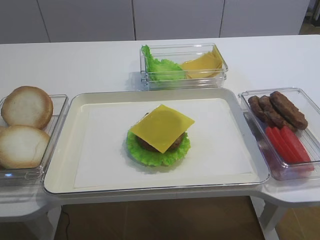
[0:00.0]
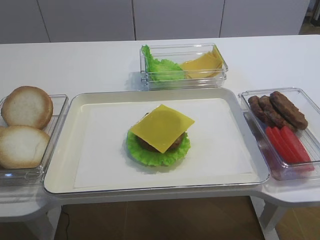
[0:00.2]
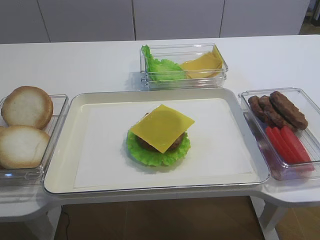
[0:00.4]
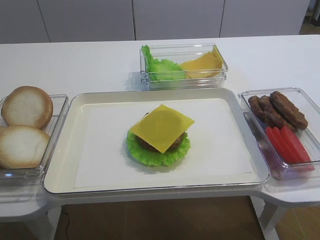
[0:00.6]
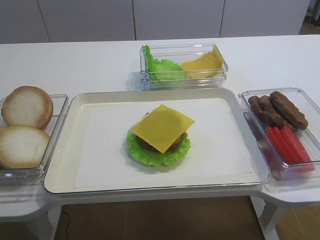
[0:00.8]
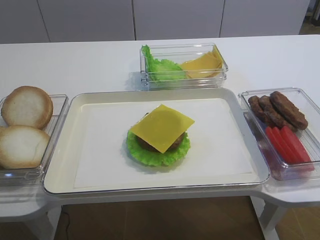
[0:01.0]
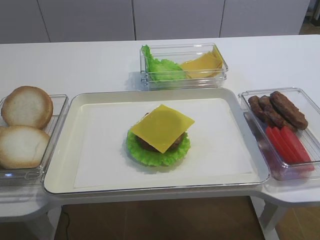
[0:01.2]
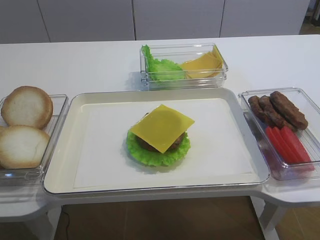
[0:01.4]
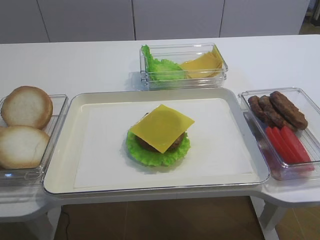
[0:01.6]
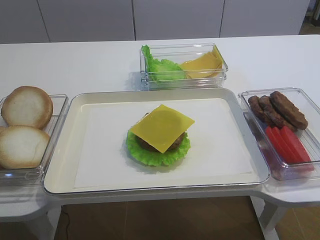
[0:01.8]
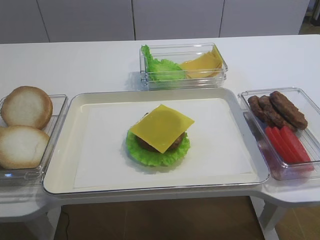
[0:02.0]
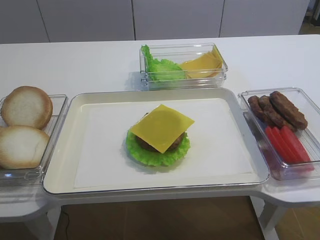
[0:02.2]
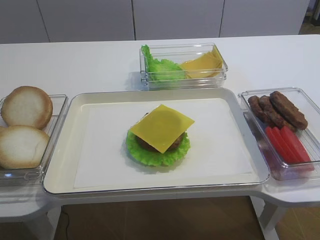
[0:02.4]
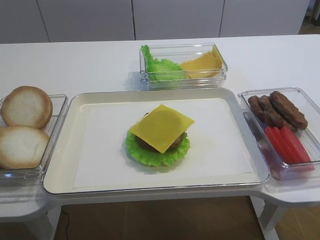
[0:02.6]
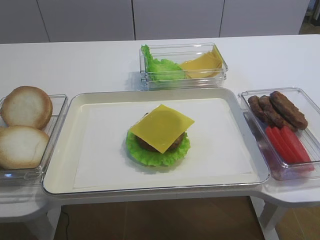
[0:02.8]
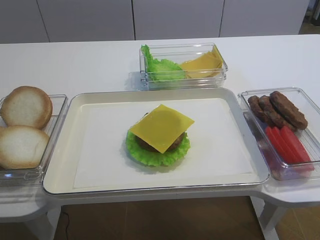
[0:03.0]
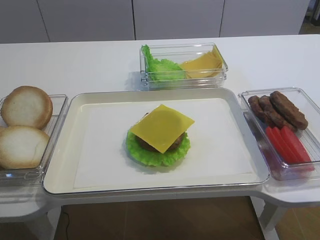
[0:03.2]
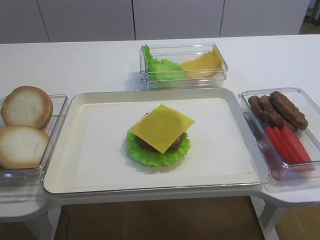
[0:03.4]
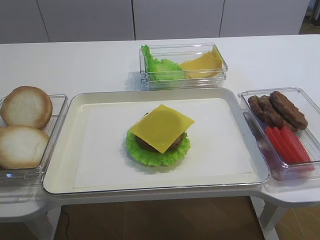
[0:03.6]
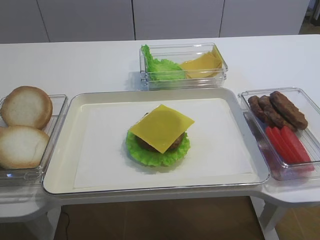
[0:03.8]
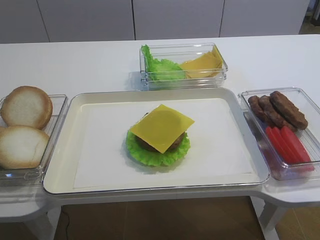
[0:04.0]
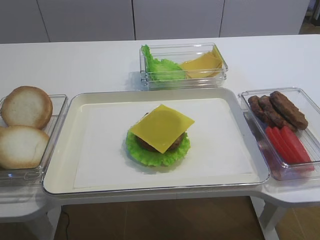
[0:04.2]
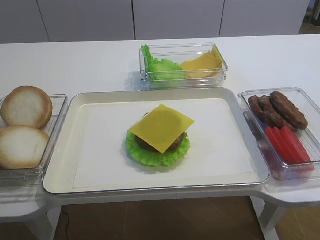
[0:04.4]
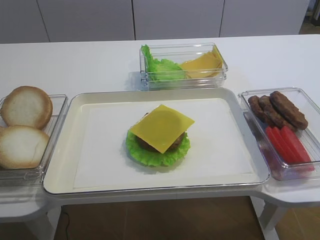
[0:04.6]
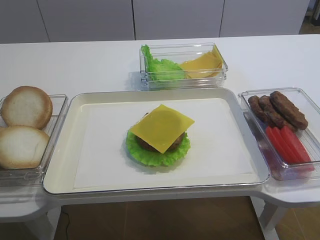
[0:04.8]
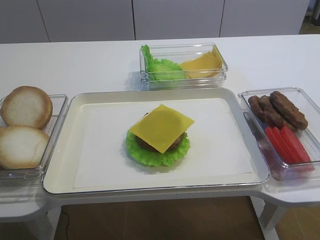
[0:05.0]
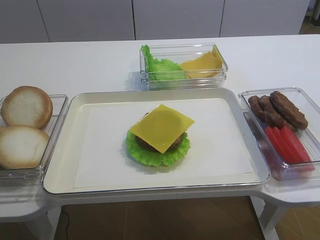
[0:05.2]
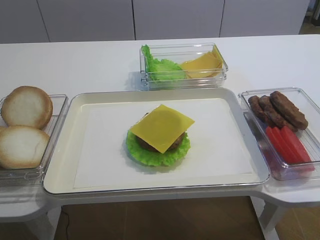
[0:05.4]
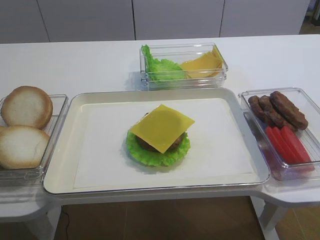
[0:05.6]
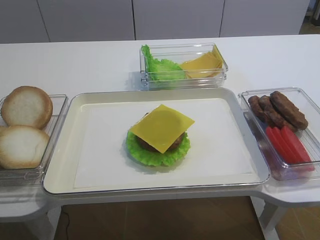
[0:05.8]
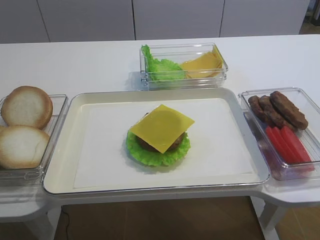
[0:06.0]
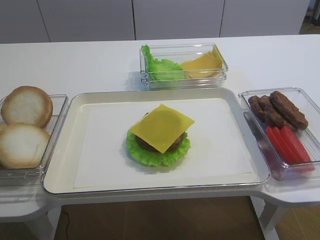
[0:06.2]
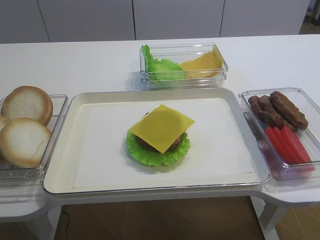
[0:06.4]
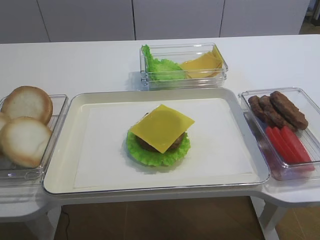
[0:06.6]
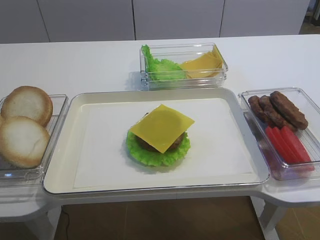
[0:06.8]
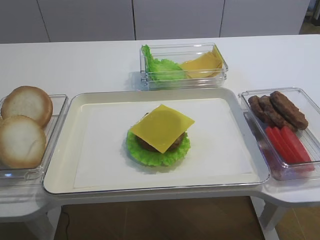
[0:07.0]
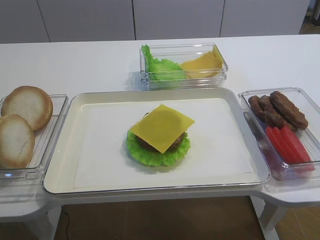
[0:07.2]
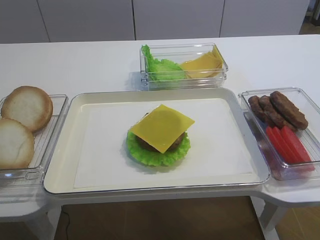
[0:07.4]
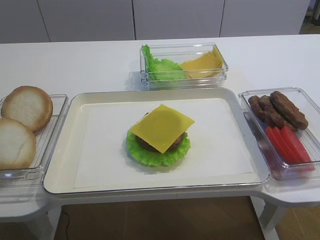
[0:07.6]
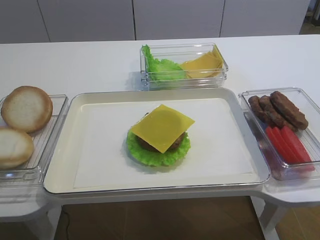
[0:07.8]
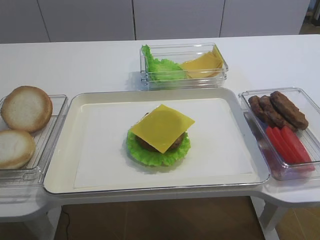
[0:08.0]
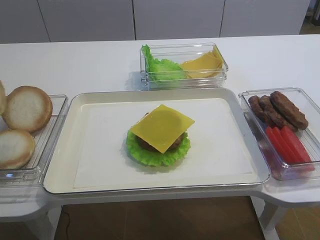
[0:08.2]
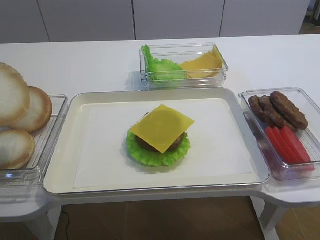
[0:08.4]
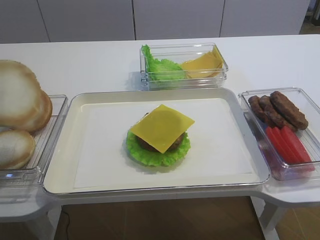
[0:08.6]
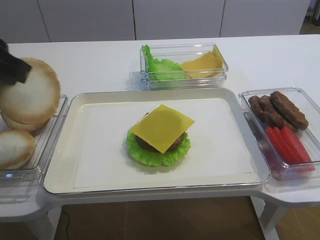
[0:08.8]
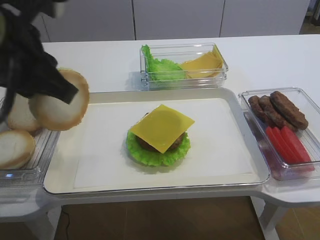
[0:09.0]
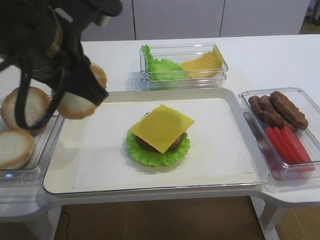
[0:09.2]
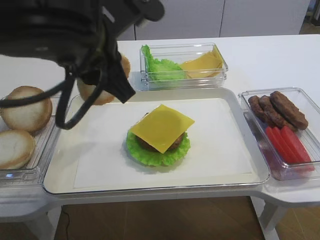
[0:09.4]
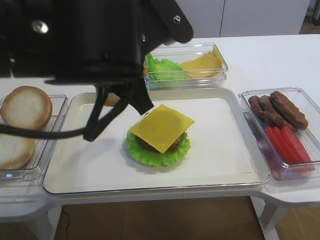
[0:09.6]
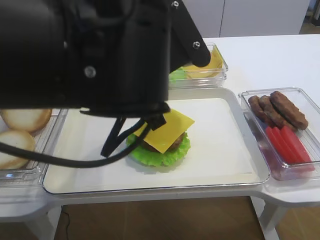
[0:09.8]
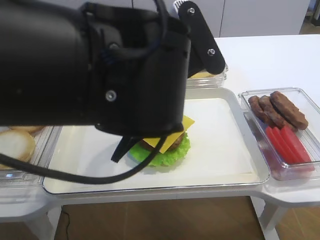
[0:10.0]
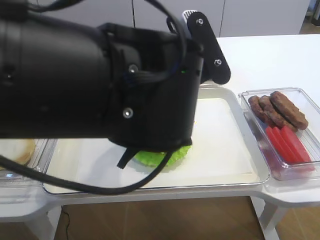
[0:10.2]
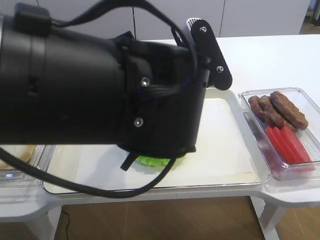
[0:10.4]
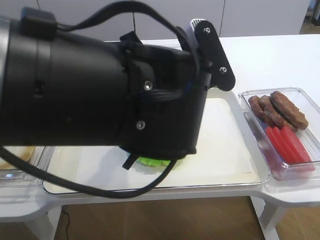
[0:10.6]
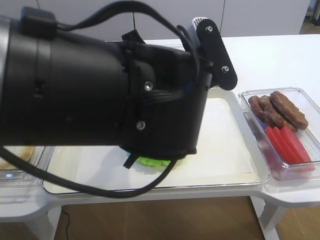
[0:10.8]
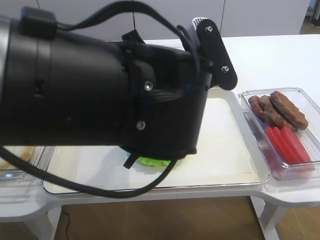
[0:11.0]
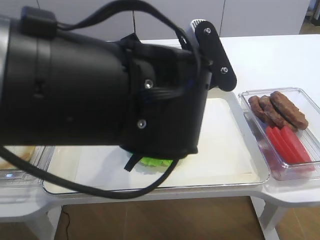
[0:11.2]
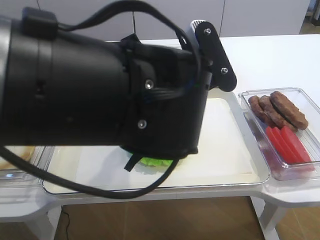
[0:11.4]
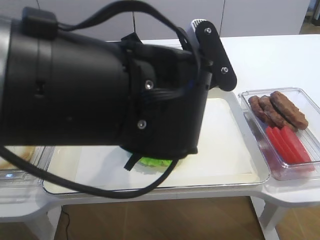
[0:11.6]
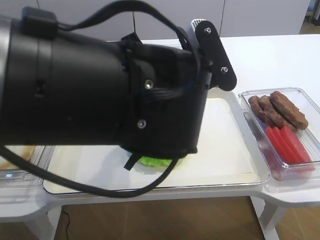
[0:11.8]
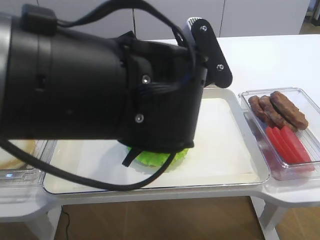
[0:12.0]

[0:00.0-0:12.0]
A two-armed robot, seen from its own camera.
0:06.0 to 0:07.6: The left gripper travels upward by approximately 5 cm.
0:07.6 to 0:09.0: The left gripper moves to the right, approximately 20 cm.
0:09.0 to 0:10.4: The left gripper heads to the right, covering about 15 cm.
0:10.4 to 0:12.0: The two grippers keep their place.

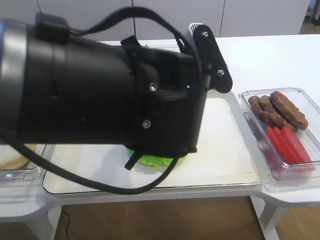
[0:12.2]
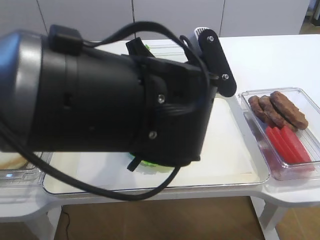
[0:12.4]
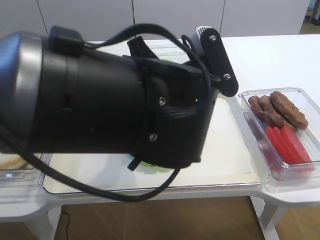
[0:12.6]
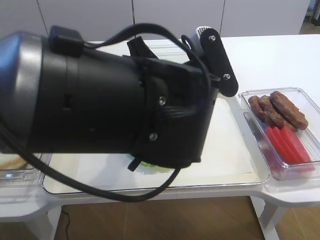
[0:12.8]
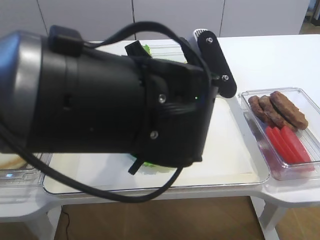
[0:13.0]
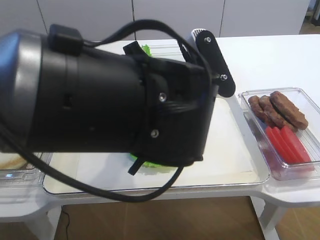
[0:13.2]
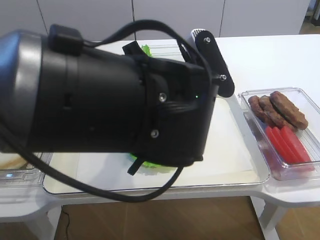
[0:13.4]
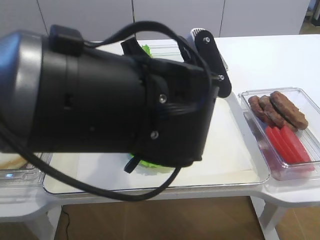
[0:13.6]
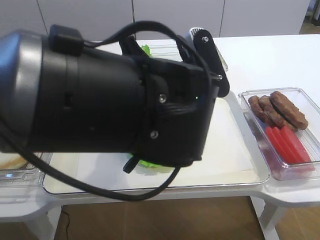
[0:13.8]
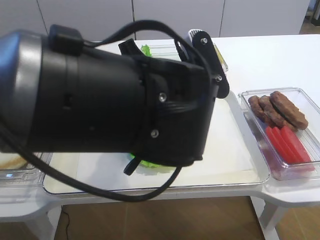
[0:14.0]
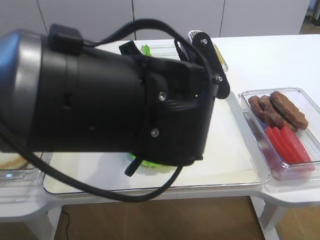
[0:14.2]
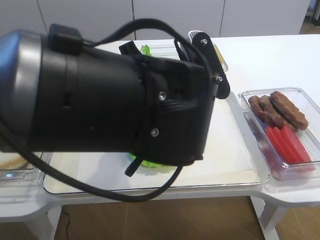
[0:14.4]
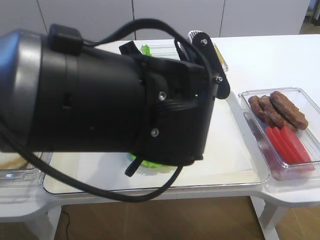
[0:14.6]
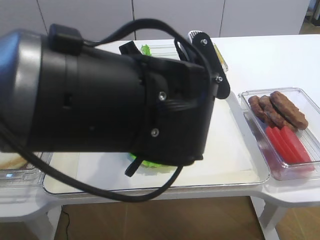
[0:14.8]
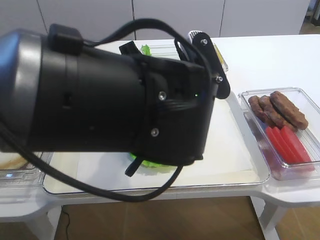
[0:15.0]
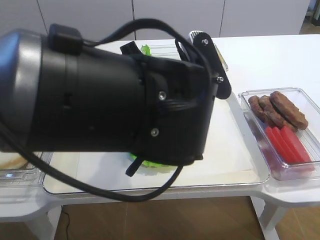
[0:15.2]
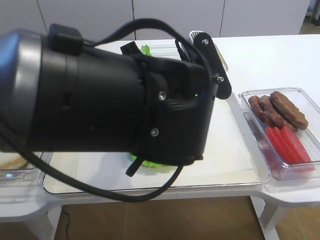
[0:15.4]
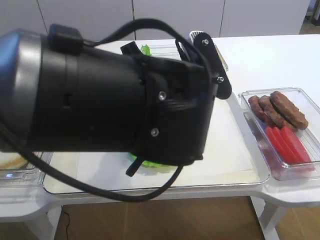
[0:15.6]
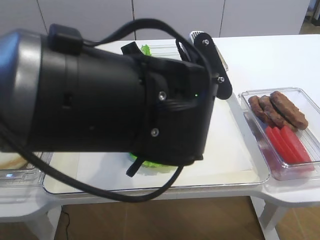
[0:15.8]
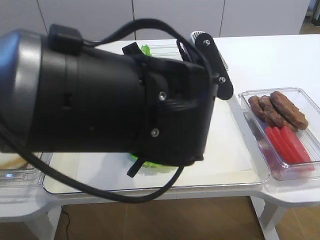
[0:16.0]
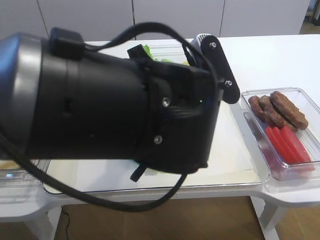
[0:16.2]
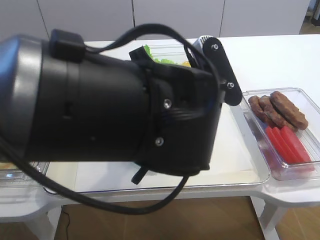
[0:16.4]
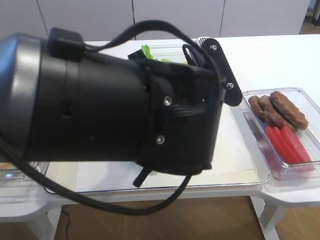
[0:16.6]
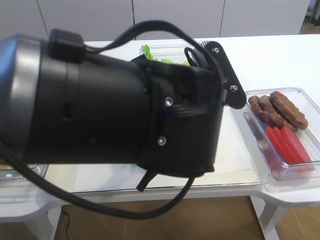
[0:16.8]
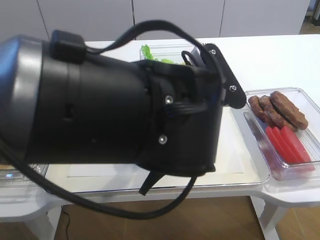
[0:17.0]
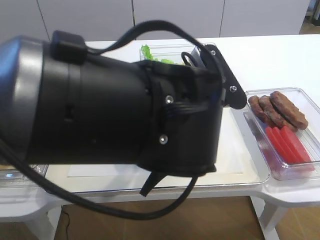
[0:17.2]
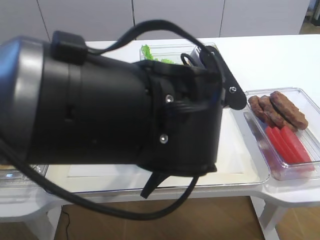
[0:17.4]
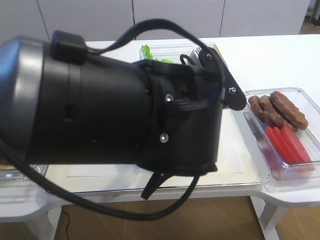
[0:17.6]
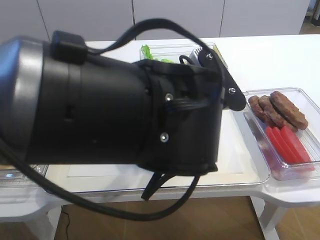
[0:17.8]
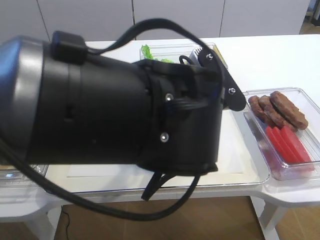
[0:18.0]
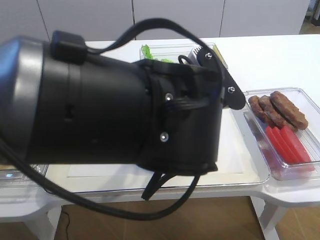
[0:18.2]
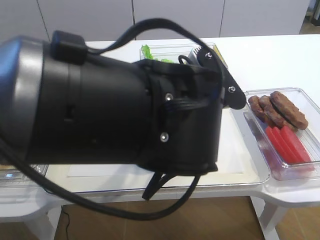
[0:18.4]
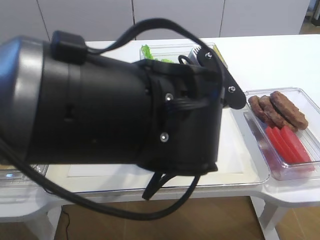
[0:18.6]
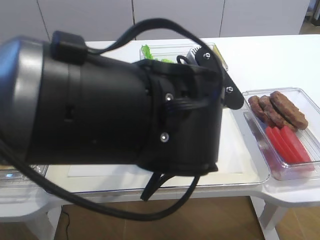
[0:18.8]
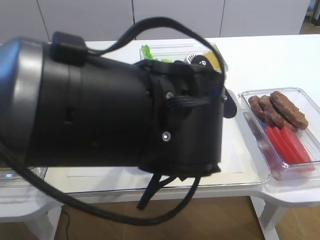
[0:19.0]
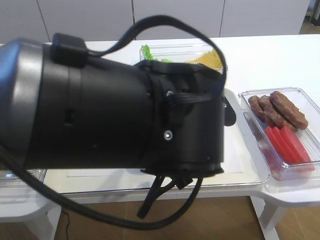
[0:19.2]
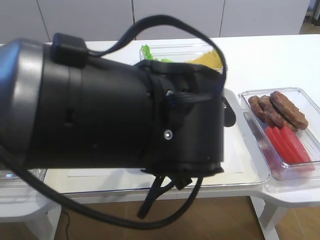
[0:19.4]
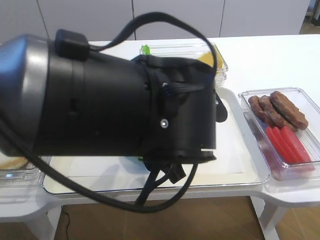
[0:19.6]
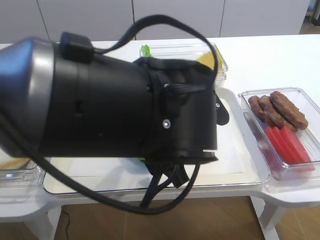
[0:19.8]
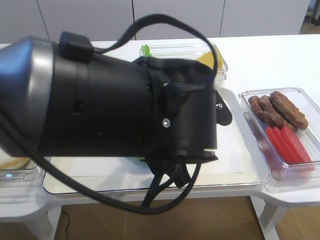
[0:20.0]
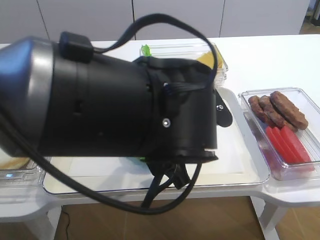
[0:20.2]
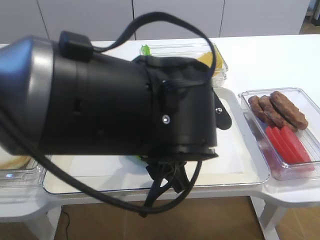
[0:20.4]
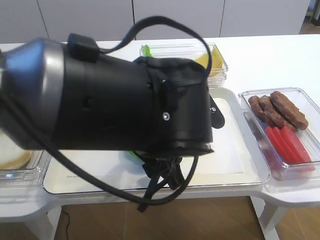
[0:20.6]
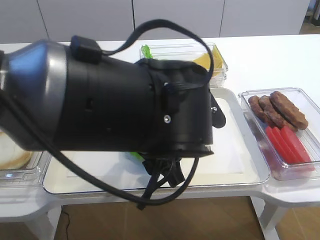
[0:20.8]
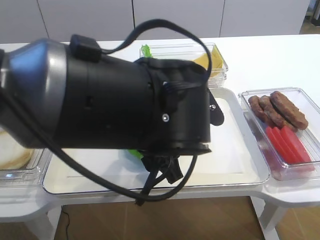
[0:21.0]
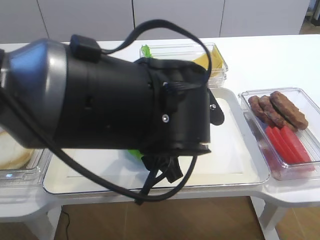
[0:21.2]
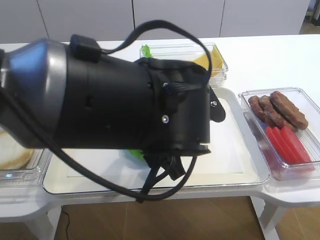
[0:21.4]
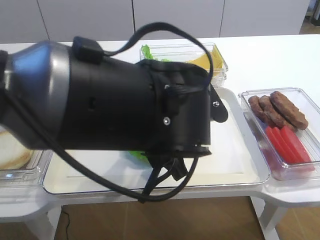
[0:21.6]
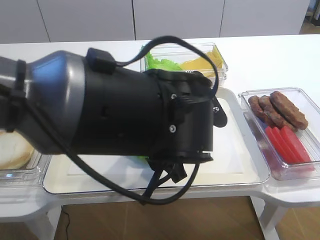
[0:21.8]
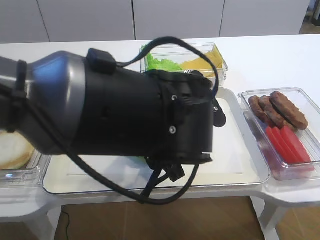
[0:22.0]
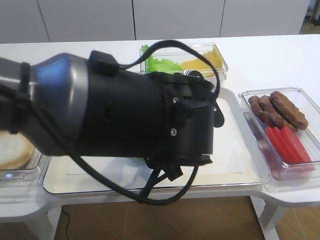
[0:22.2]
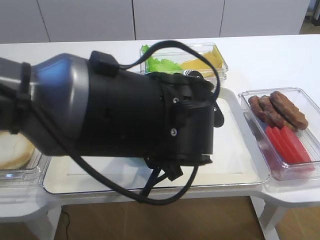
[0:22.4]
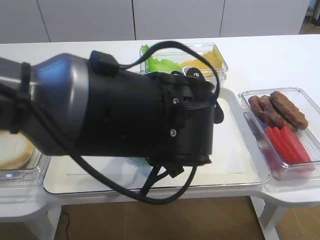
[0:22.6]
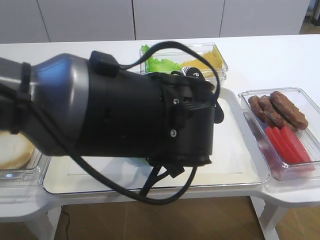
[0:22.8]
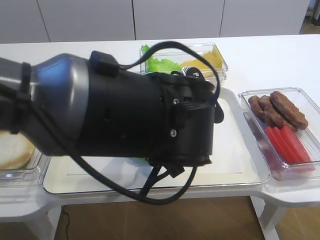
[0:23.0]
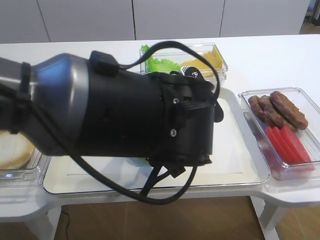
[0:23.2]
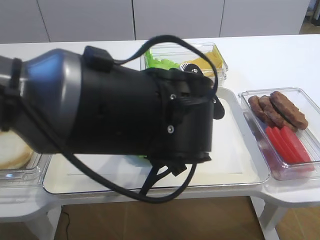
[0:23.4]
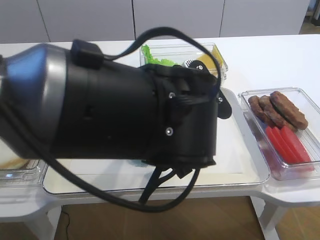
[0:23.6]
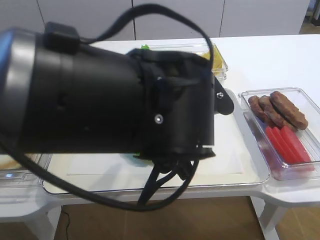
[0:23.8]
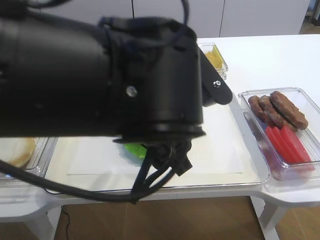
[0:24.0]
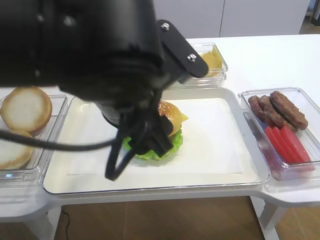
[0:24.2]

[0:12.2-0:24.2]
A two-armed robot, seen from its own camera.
Step, 0:12.2 to 0:24.2: Place the hamburger lid on the cheese slice with the left gripper.
0:12.2 to 0:15.2: The two grippers keep their place.
0:15.2 to 0:16.6: Both grippers stay put.
0:16.6 to 0:18.2: The left gripper opens.
0:18.2 to 0:19.8: The grippers make only small movements.
0:19.8 to 0:21.2: Neither gripper changes place.
0:21.2 to 0:22.6: Both grippers stay put.
0:22.6 to 0:24.2: The left gripper travels upward by some 5 cm.
